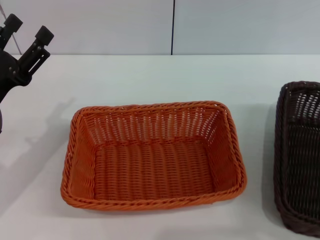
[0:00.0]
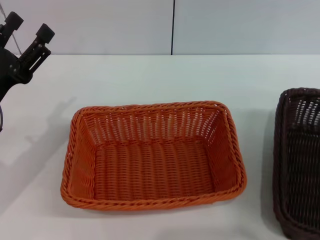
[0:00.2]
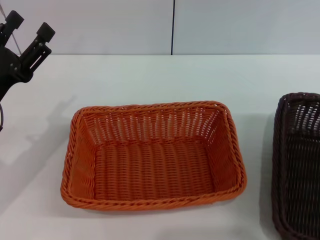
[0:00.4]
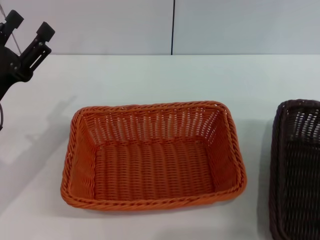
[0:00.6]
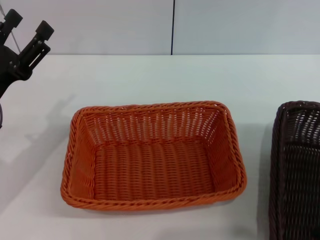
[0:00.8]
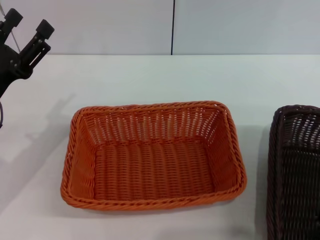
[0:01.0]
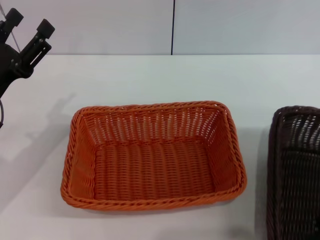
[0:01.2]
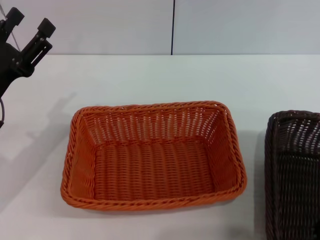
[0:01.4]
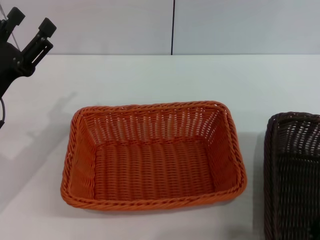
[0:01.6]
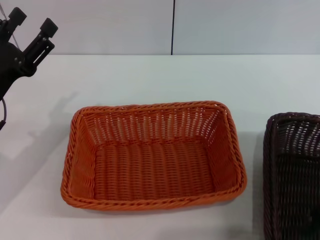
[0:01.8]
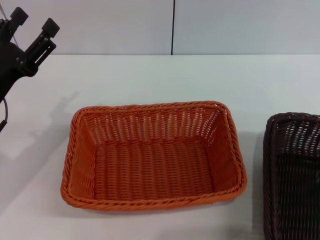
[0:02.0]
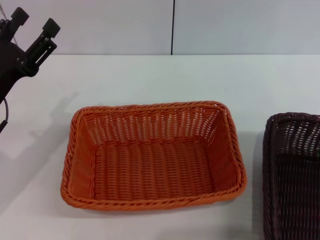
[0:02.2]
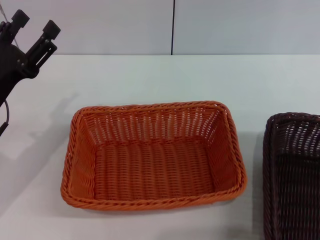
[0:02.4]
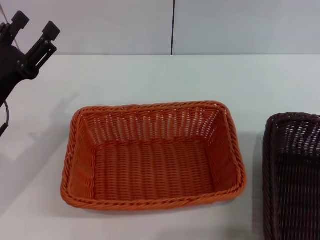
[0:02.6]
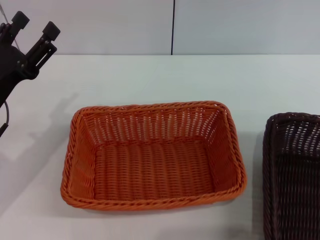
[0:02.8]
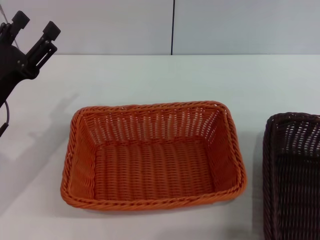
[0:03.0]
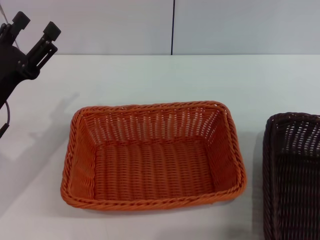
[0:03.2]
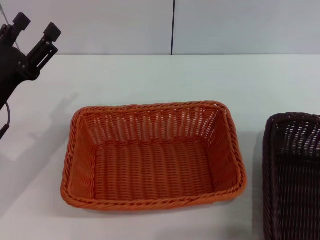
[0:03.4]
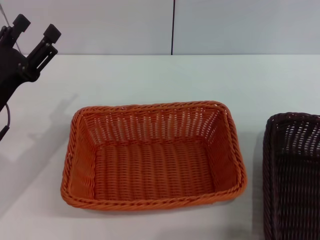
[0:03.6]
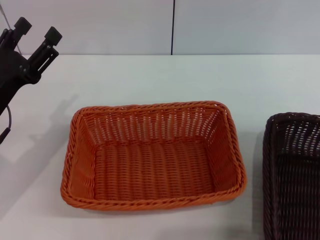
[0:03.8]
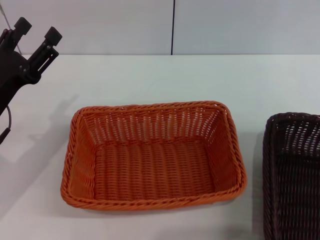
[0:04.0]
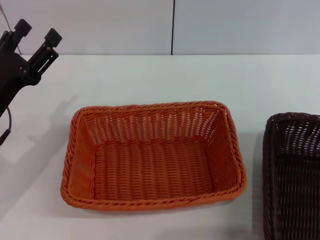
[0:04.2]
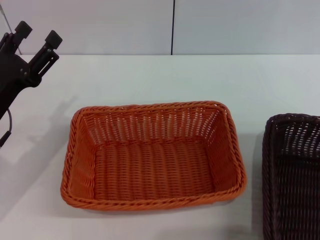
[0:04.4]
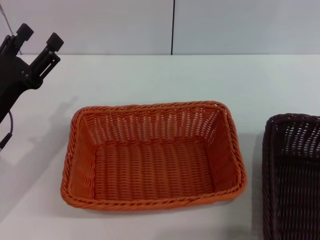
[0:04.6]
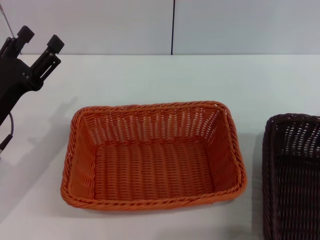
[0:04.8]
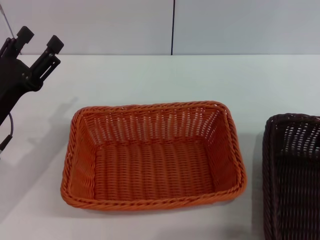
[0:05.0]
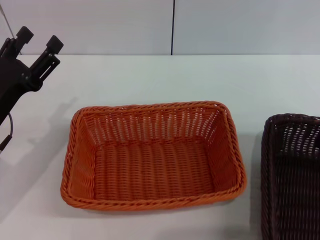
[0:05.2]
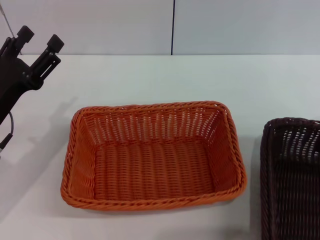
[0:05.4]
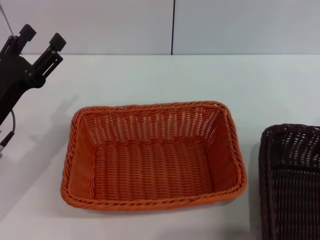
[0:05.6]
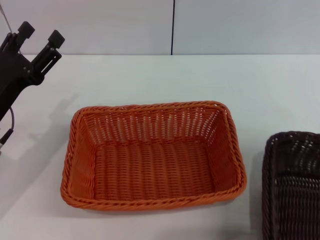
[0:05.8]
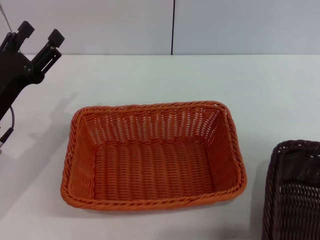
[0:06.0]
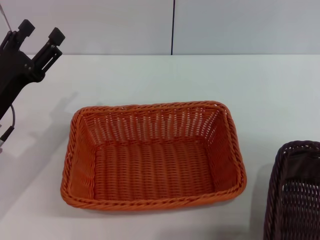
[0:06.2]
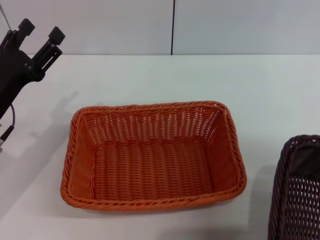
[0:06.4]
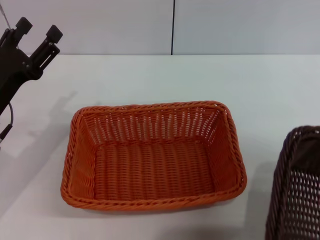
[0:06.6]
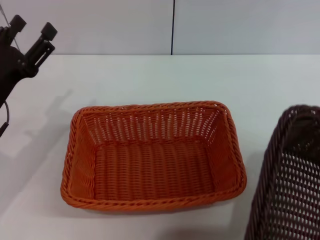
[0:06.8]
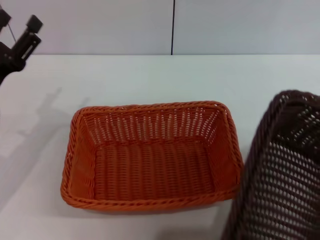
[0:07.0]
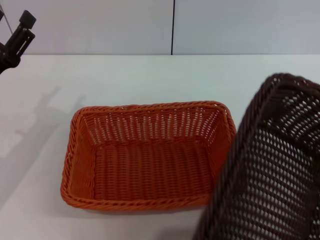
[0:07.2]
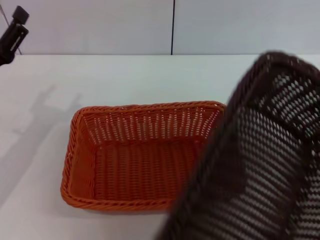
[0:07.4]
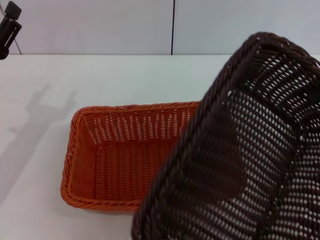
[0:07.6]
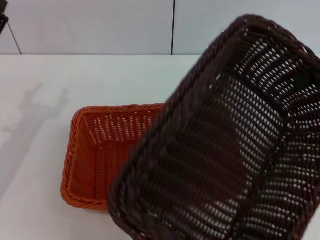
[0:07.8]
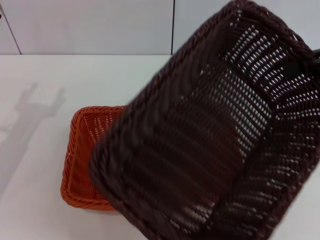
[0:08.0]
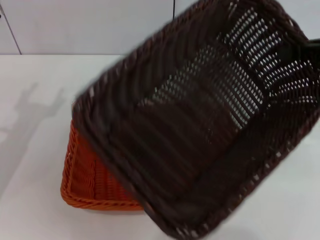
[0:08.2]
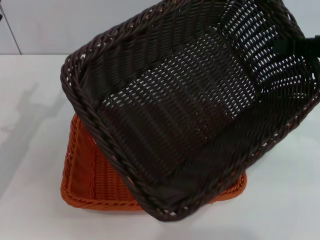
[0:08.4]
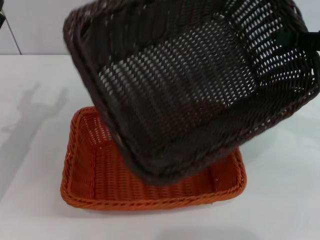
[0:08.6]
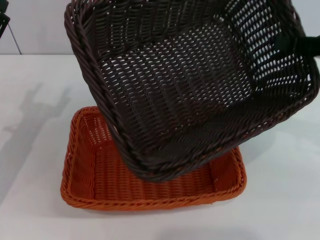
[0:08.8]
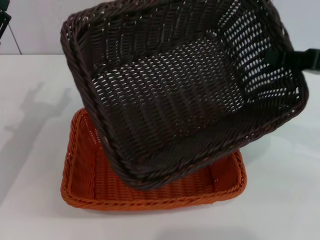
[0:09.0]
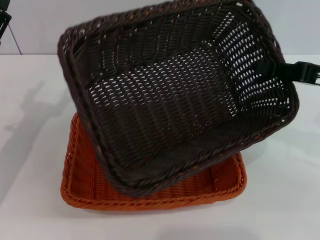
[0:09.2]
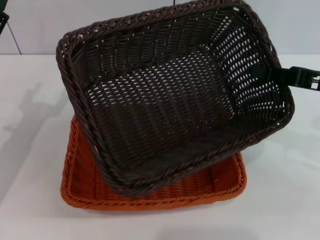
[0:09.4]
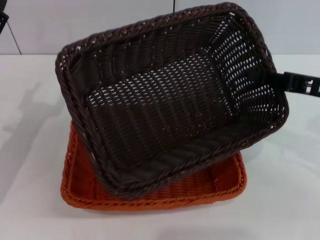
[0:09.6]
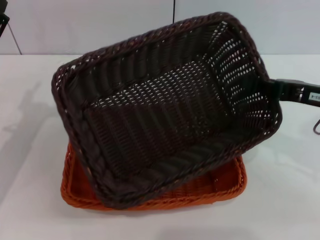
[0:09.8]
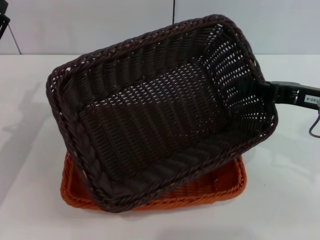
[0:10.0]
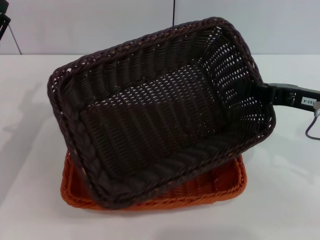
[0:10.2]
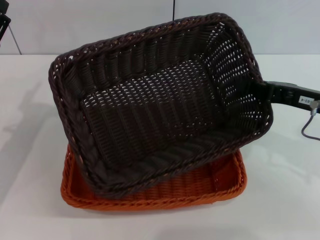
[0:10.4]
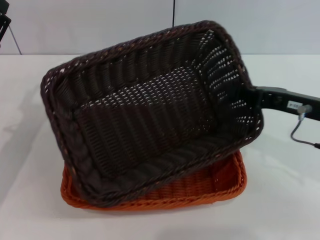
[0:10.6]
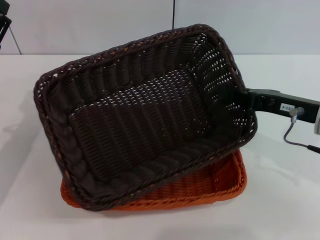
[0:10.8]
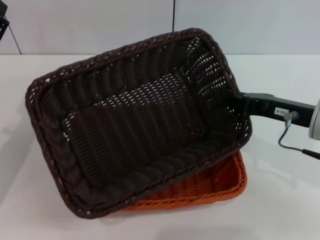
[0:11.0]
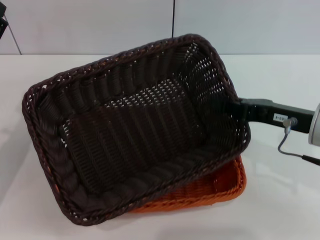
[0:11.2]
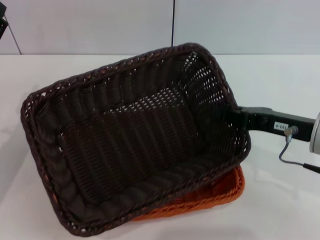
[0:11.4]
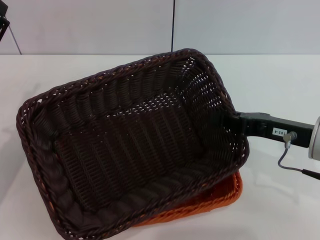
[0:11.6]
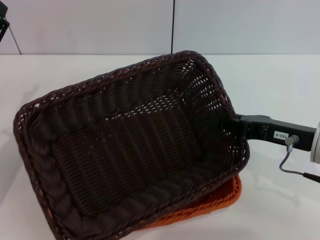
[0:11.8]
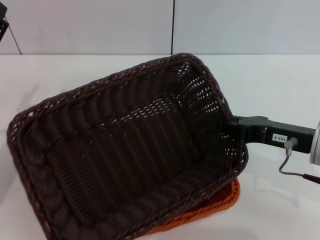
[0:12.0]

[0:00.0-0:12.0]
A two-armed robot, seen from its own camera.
Step, 0:00.0 to 0:06.6: Pick up the dark basket with the right gripper.
0:00.0 to 0:01.6: The right gripper ends up about 5 cm from where it was.
0:04.4 to 0:06.0: The right gripper closes its fingers.
0:06.0 to 0:07.6: The right gripper travels upward by about 5 cm.
0:07.6 to 0:09.0: The right gripper shifts some 5 cm downward.
0:09.0 to 0:10.4: The right gripper changes place by some 5 cm.

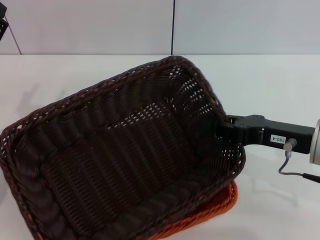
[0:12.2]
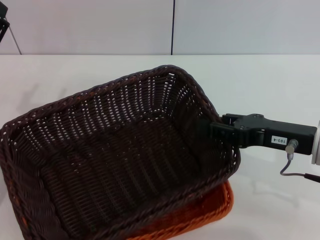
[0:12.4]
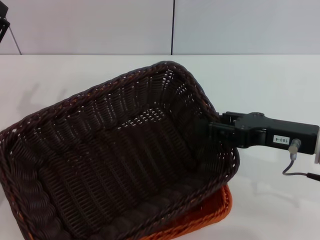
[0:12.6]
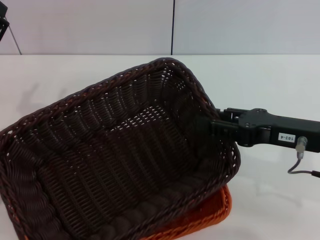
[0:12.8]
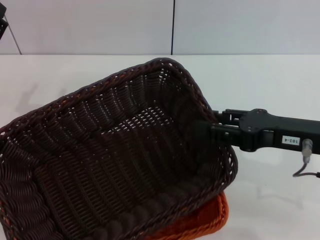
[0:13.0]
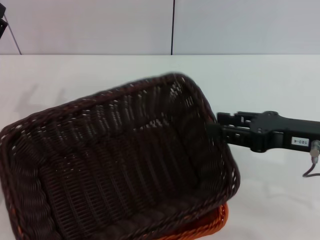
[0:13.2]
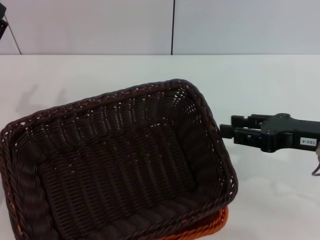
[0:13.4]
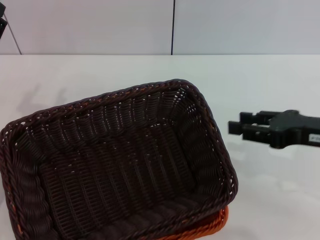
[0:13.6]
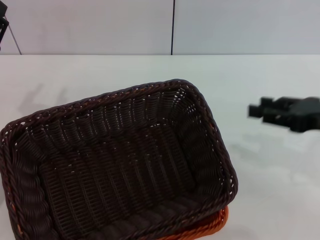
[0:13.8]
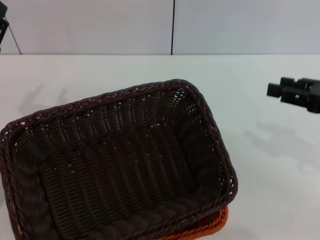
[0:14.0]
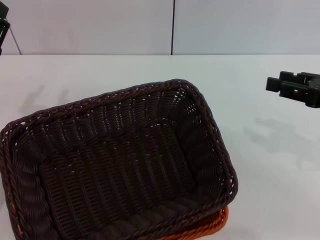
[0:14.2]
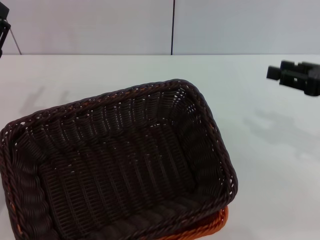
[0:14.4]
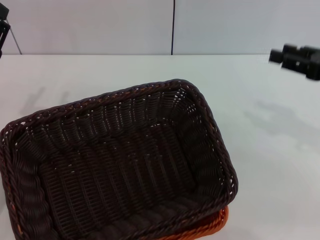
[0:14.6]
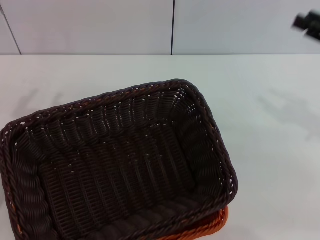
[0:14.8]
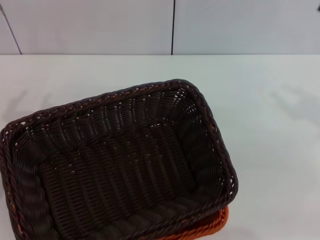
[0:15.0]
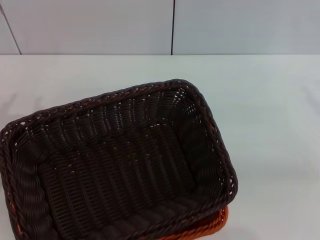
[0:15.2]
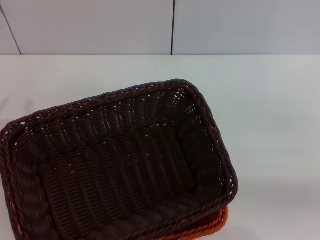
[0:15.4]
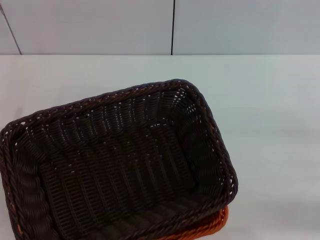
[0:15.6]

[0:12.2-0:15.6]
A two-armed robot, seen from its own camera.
0:12.2 to 0:13.8: The right gripper shifts roughly 5 cm to the right, and opens its fingers.
0:13.8 to 0:15.6: The right gripper travels to the right by some 10 cm.
